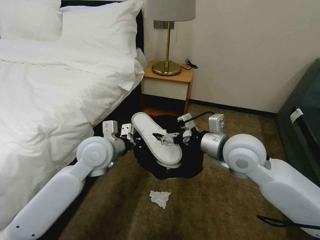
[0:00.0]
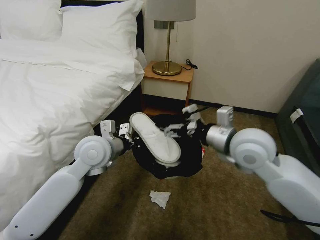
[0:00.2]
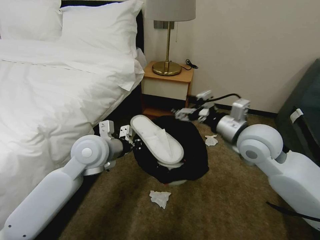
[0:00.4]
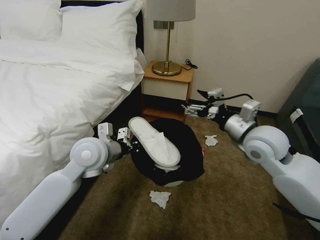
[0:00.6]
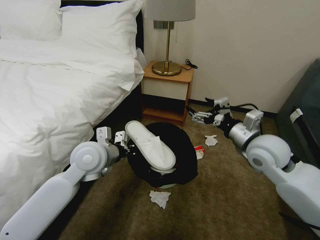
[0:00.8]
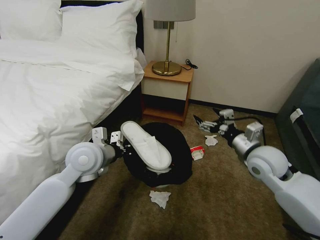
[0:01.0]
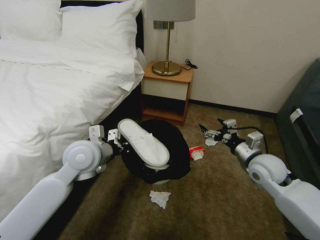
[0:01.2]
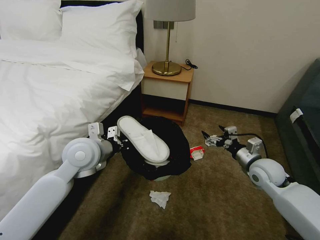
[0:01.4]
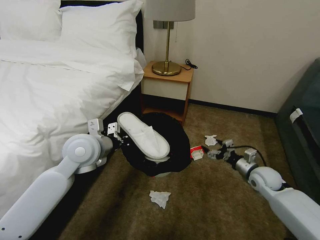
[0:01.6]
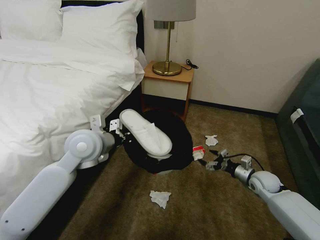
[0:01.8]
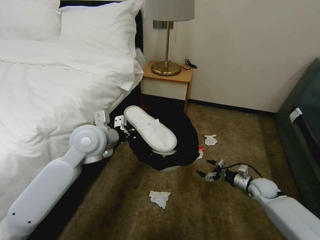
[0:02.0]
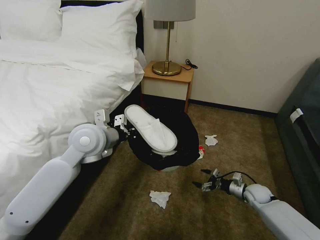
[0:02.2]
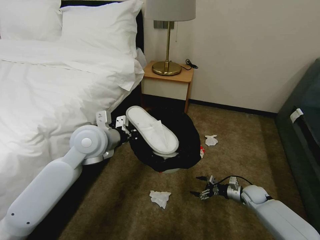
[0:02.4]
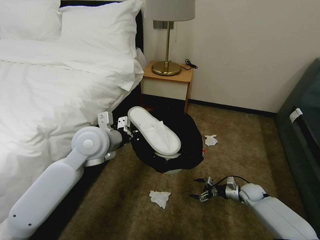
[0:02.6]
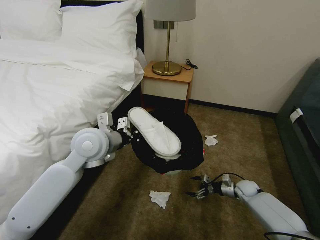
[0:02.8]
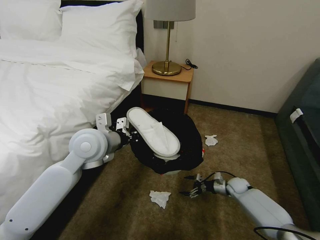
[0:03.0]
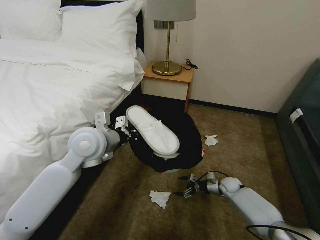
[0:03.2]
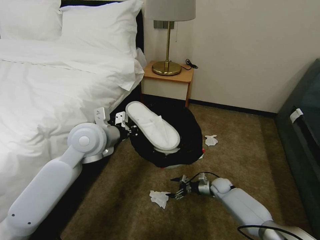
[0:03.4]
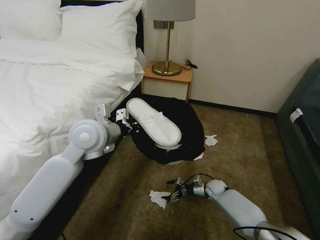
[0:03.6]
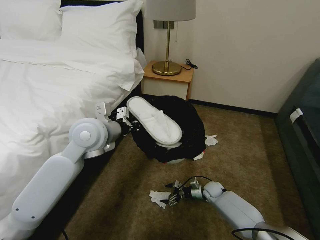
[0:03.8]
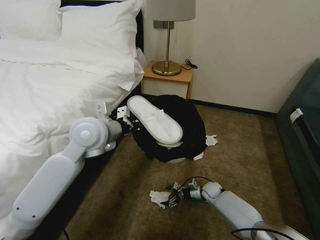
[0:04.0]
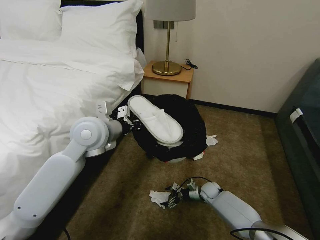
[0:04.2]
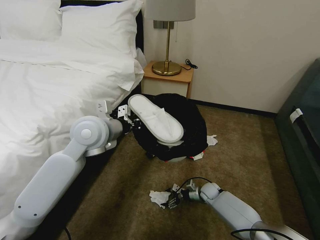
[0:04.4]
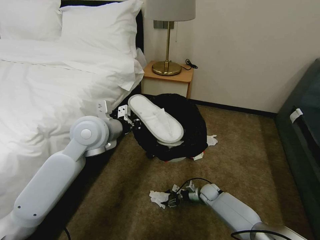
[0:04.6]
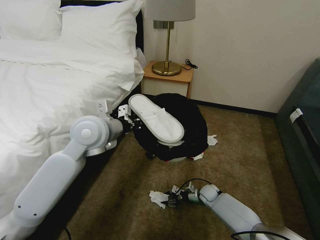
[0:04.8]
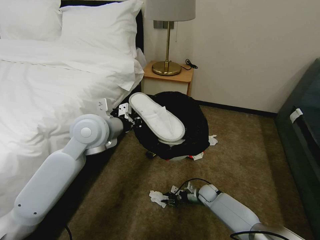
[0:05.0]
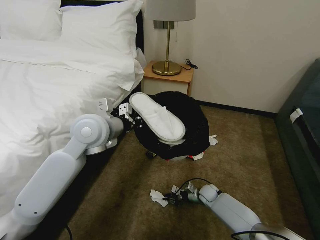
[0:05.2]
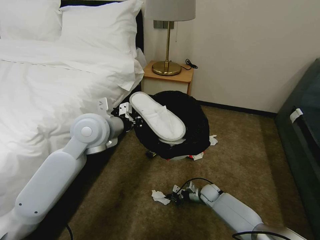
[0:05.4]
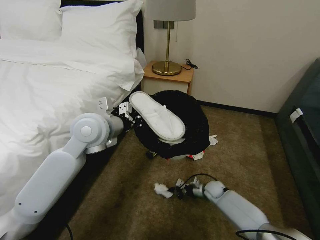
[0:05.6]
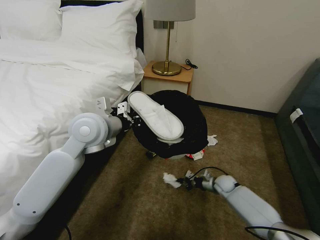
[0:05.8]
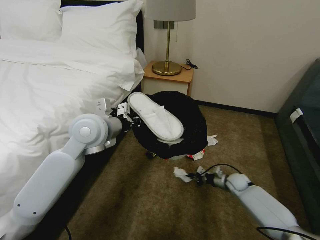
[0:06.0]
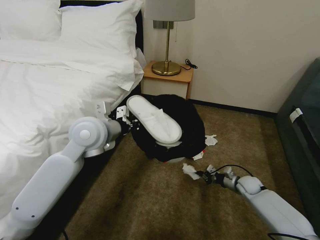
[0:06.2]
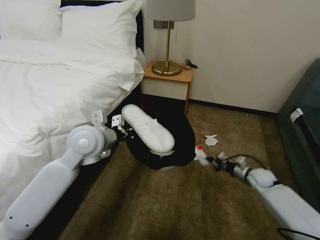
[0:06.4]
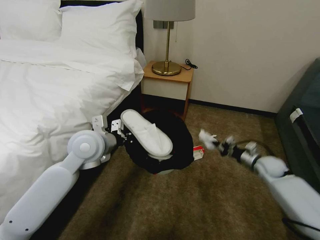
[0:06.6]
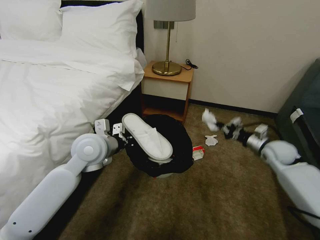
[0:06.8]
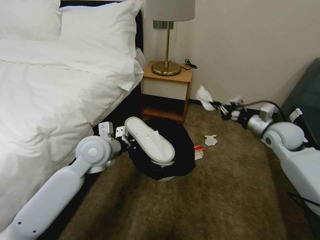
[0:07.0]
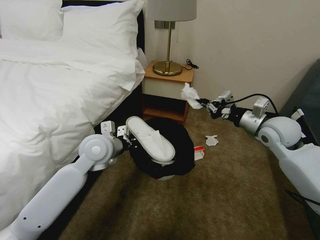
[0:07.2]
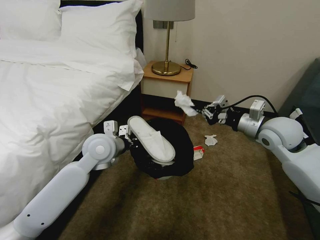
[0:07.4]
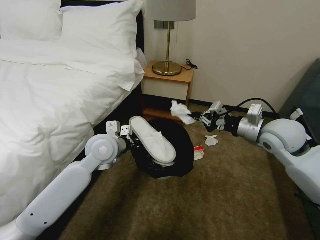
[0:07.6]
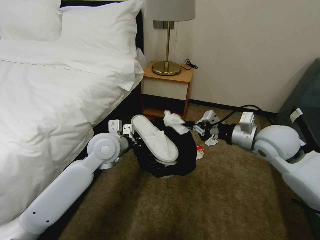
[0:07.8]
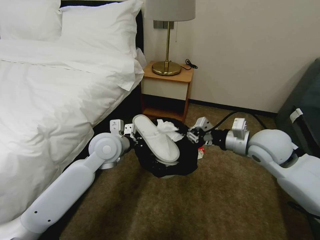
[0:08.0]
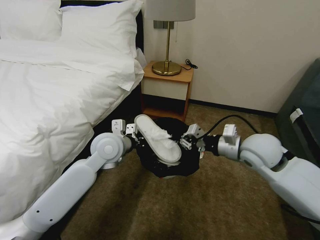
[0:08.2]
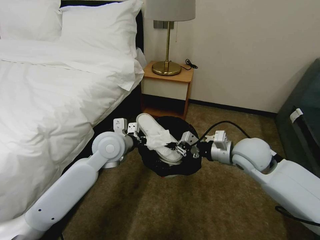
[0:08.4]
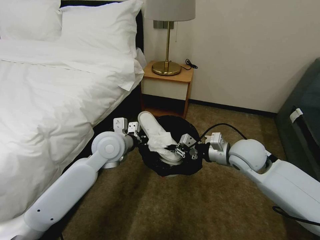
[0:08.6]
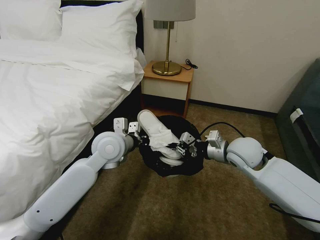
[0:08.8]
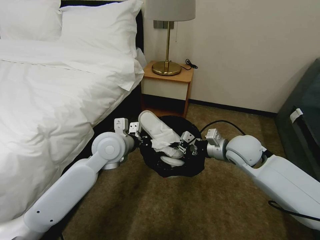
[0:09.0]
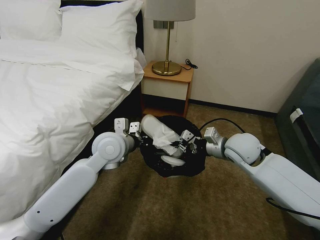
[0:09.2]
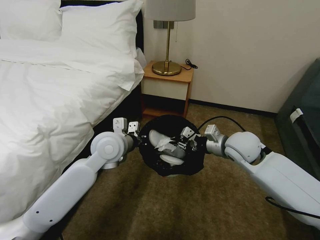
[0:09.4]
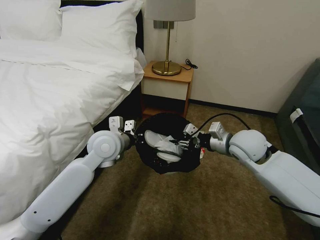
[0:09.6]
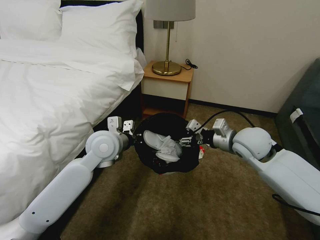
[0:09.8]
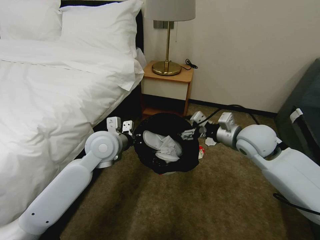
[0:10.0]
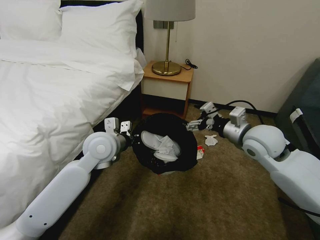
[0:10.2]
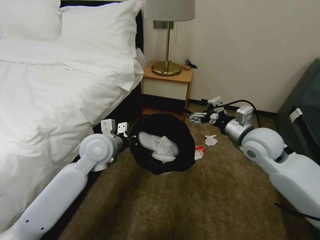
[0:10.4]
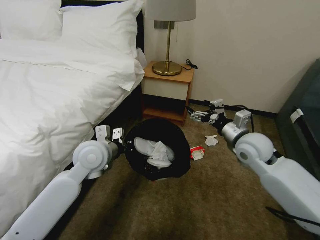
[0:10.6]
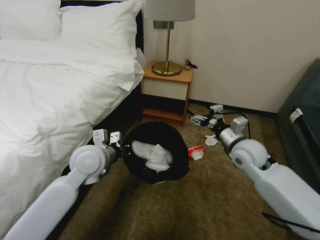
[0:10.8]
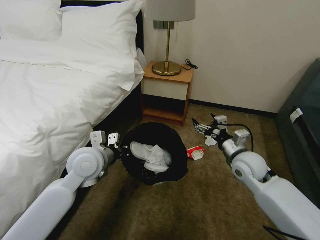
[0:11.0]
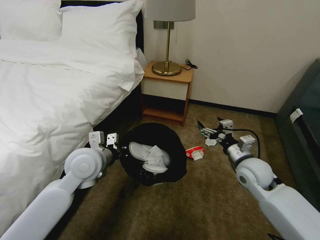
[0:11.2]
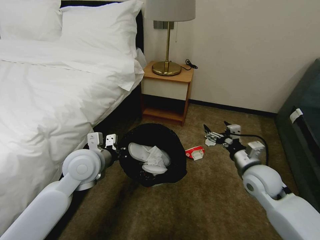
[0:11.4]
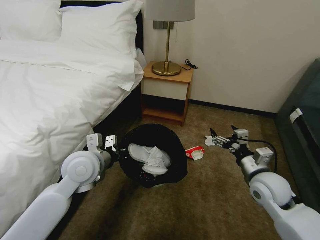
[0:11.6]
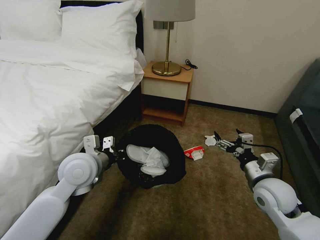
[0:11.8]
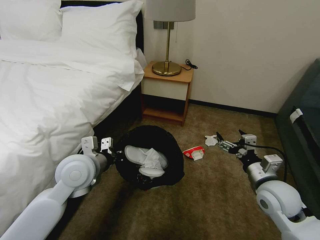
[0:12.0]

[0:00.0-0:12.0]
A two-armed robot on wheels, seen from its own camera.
Task of the whole recording: Pick up the trash bin, then pick up the garbage on the floor and place it into the trash bin.
0:00.0 to 0:01.6: The right gripper travels downward and to the right by roughly 25 cm.
0:01.6 to 0:03.0: The right gripper goes roughly 20 cm downward.
0:03.0 to 0:04.4: The right gripper shifts roughly 15 cm to the left.
0:04.4 to 0:06.0: The right gripper is displaced to the right and upward by some 15 cm, and closes its fingers.
0:06.0 to 0:07.6: The right gripper travels upward by some 35 cm; the left gripper goes approximately 10 cm downward.
0:07.6 to 0:09.0: The right gripper is displaced to the left and downward by approximately 10 cm.
0:09.0 to 0:10.4: The right gripper changes place by about 5 cm, and opens.
0:10.4 to 0:12.0: The right gripper shifts some 15 cm backward and downward. Meanwhile the left gripper moves backward, about 5 cm.

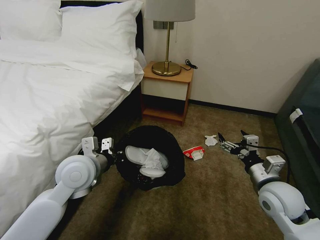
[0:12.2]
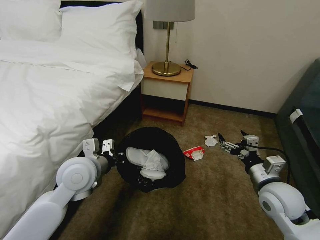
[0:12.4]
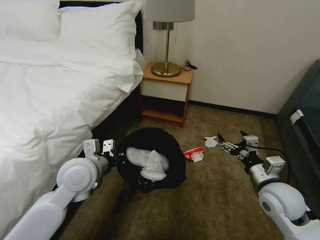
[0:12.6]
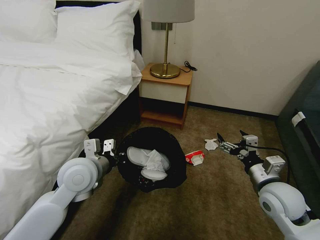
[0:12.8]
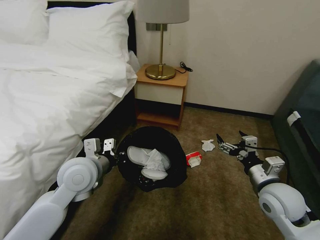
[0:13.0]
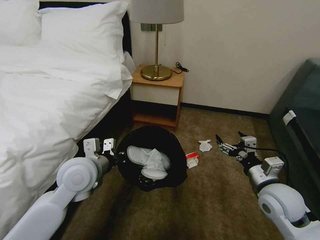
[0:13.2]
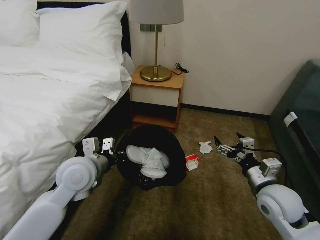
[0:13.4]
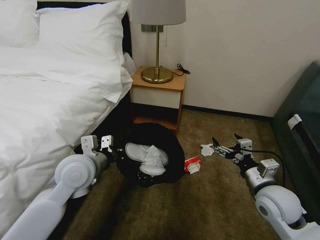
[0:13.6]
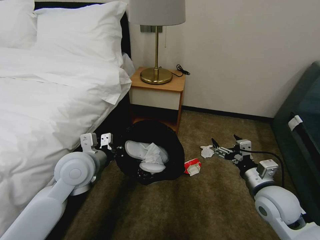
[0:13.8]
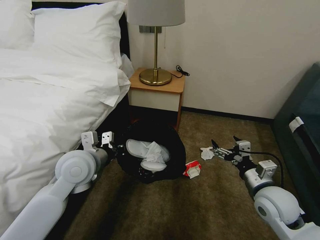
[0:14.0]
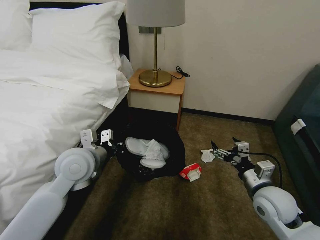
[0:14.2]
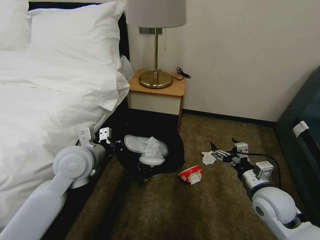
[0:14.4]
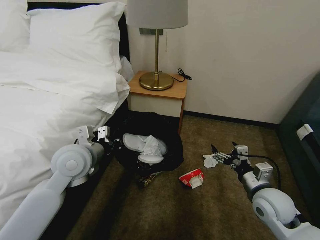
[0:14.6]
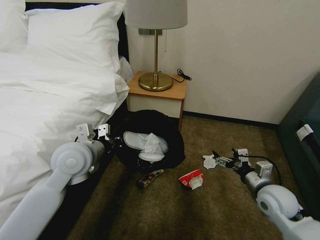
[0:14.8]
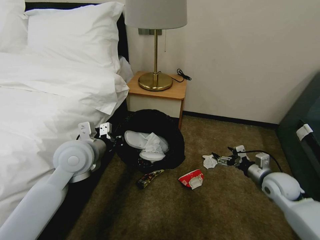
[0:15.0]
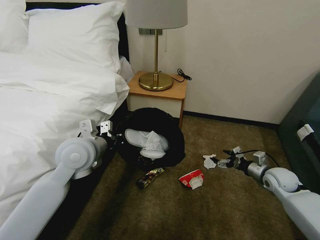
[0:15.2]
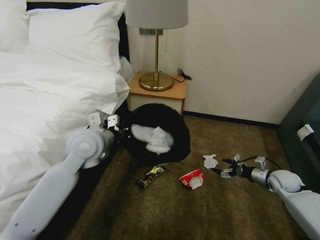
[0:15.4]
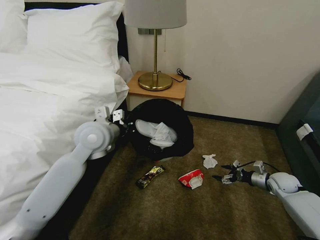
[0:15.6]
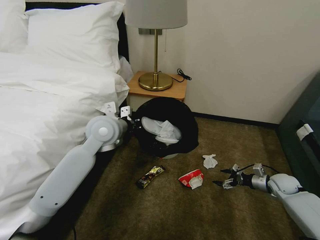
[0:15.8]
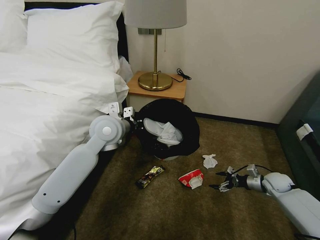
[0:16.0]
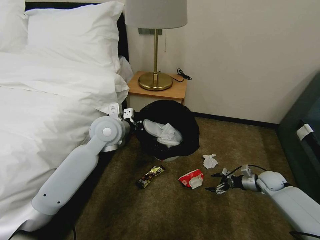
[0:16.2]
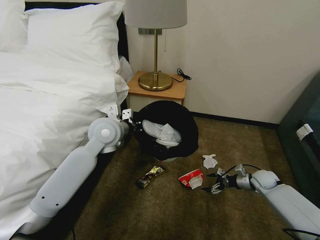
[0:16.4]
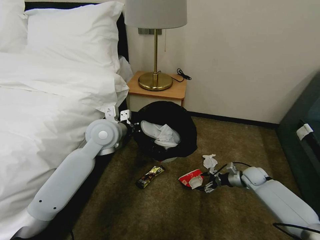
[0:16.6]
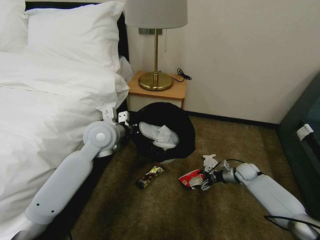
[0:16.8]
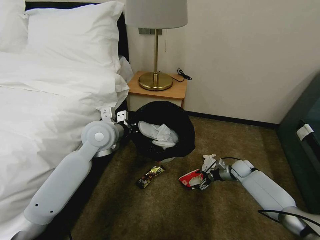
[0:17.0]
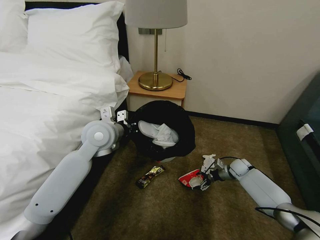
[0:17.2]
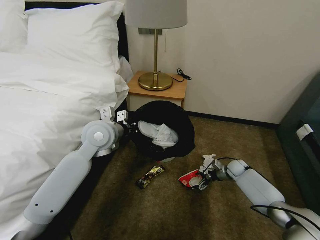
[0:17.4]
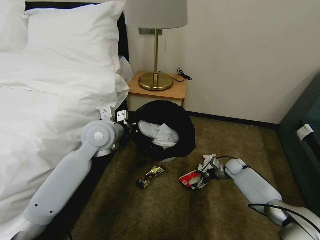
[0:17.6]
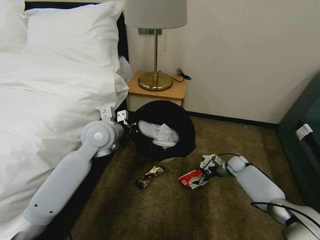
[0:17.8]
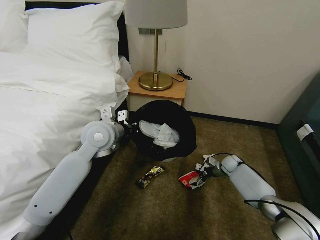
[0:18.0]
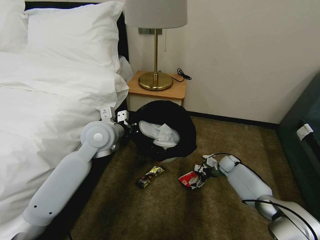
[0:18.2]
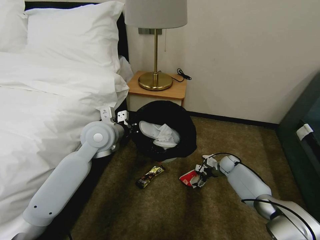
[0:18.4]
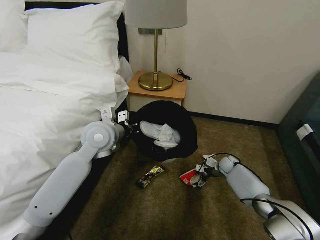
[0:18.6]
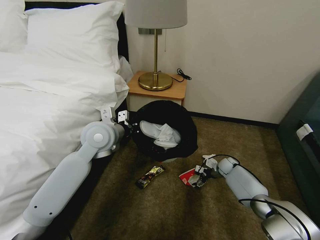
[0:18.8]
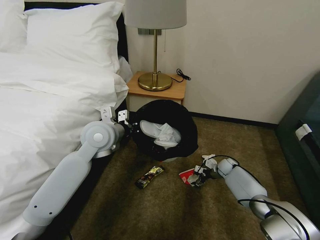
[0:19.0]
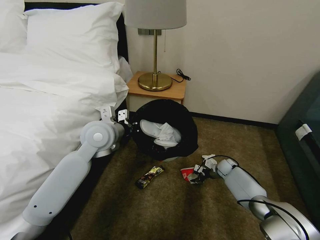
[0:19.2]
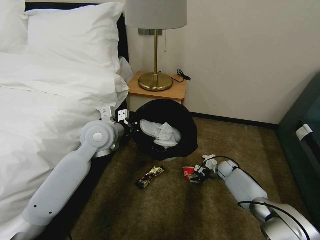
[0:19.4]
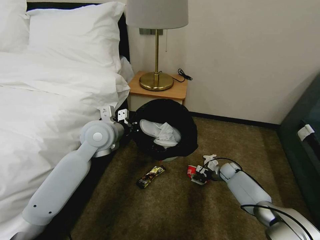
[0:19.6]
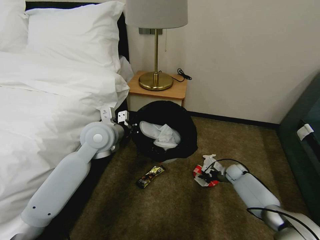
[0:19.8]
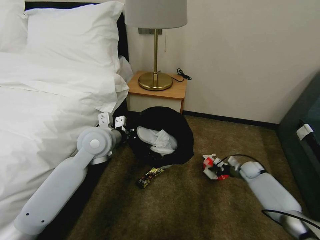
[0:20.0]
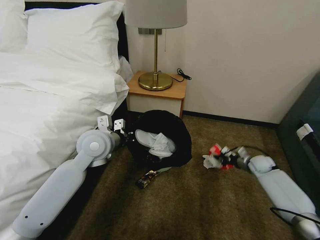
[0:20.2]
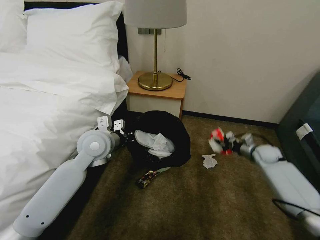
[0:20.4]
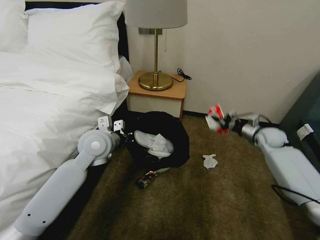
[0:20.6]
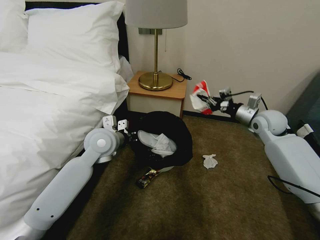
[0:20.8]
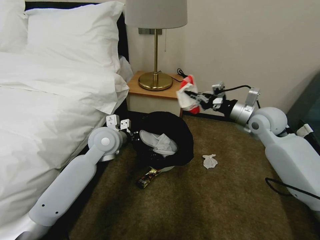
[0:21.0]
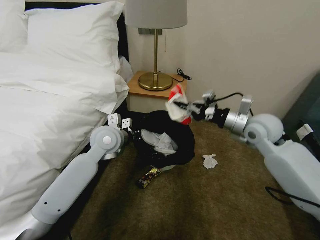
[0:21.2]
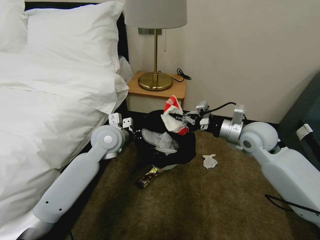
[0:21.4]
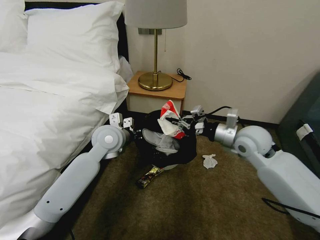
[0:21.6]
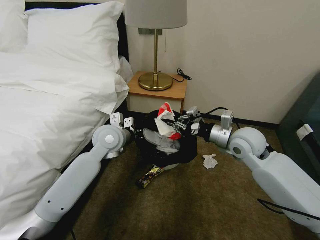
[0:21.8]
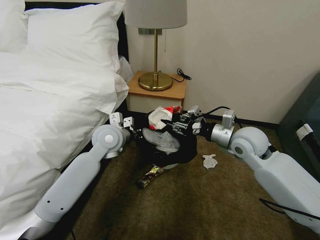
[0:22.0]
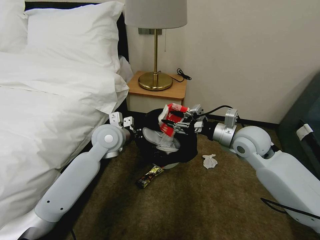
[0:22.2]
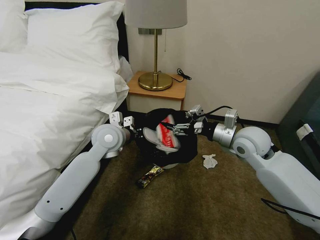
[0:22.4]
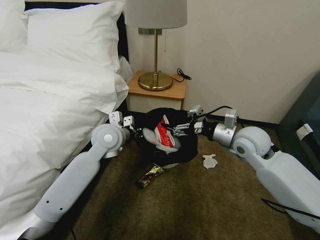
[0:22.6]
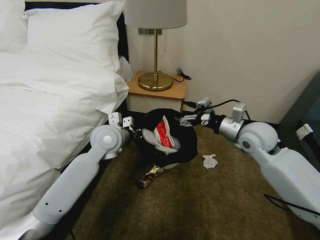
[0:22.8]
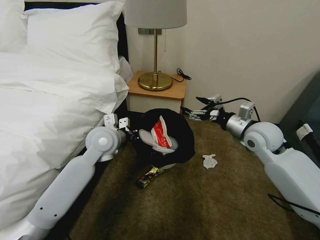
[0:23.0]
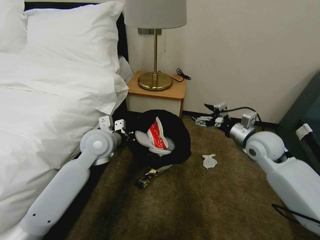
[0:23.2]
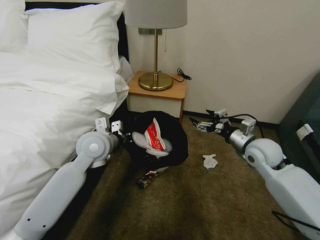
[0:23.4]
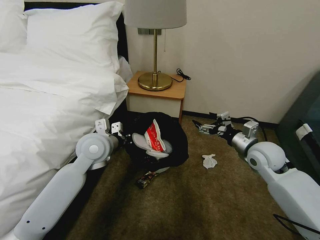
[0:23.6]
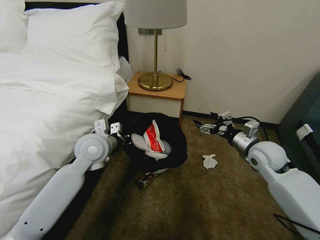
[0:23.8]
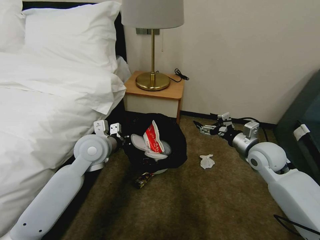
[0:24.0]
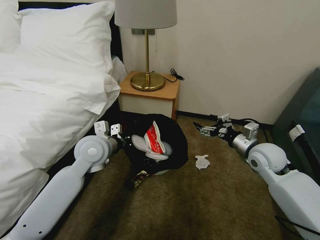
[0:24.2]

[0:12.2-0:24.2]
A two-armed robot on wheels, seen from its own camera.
Task of the whole recording: Pick up the trash bin, then pick up the garbage on the floor and place it into the trash bin.
0:13.8 to 0:15.2: The right gripper heads to the right, forward and downward, covering some 20 cm.
0:15.2 to 0:16.6: The right gripper heads downward, covering about 10 cm. Meanwhile the left gripper shifts approximately 10 cm forward and to the right.
0:16.6 to 0:18.2: The right gripper moves forward and to the left, some 10 cm.
0:18.2 to 0:19.8: The right gripper changes place by roughly 5 cm, and closes its fingers.
0:19.8 to 0:21.2: The right gripper heads upward, covering roughly 35 cm.
0:21.2 to 0:22.6: The right gripper ends up about 5 cm from where it was, and opens its fingers.
0:22.6 to 0:24.2: The right gripper is displaced to the right and downward by roughly 10 cm; the left gripper moves about 5 cm.
